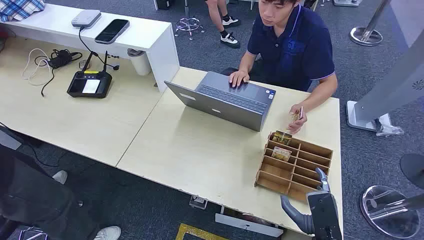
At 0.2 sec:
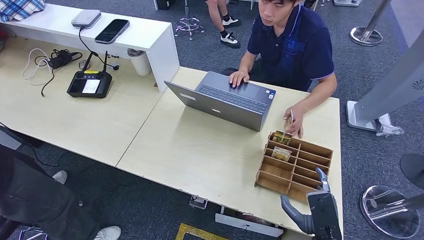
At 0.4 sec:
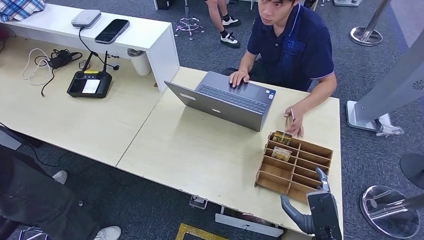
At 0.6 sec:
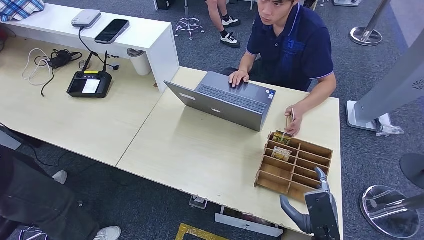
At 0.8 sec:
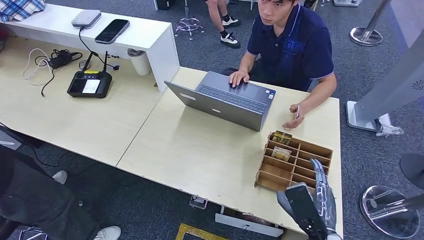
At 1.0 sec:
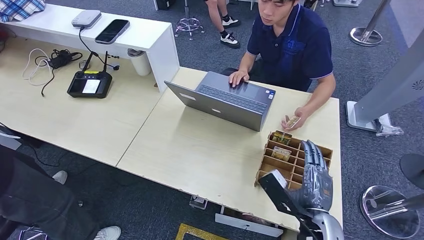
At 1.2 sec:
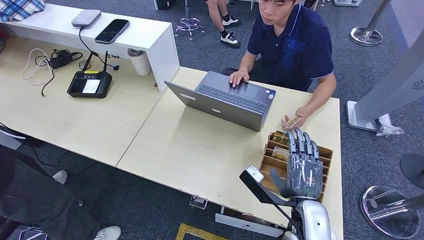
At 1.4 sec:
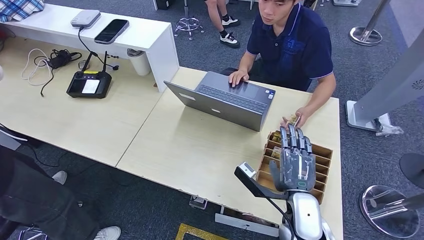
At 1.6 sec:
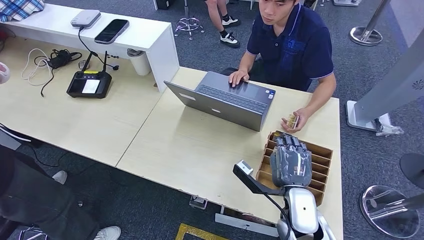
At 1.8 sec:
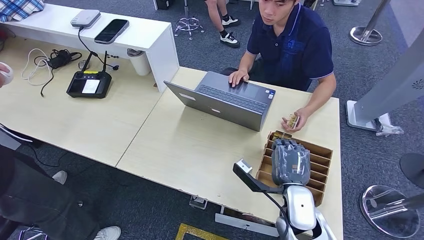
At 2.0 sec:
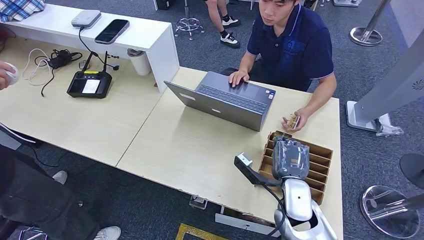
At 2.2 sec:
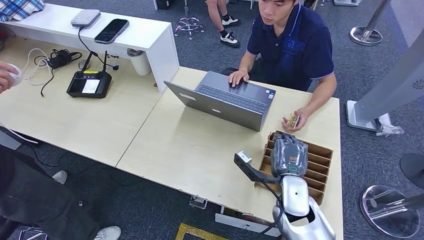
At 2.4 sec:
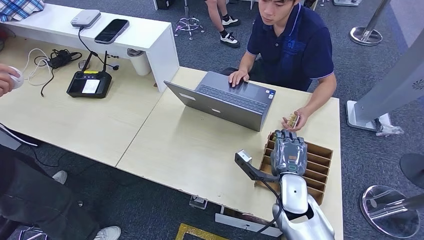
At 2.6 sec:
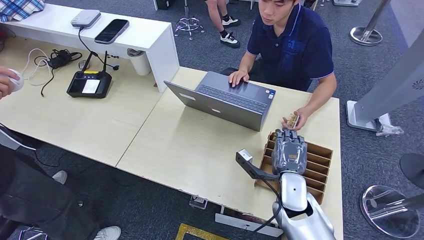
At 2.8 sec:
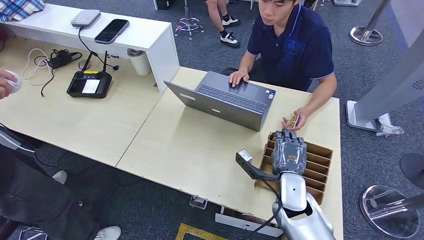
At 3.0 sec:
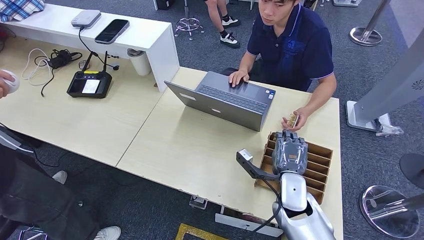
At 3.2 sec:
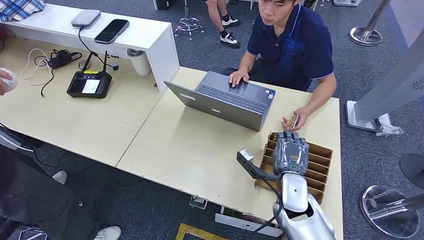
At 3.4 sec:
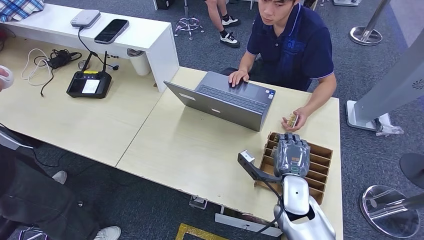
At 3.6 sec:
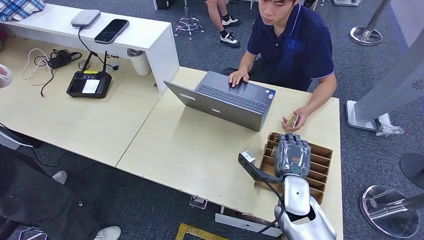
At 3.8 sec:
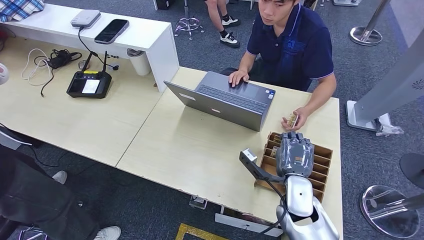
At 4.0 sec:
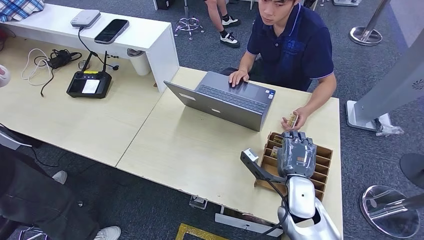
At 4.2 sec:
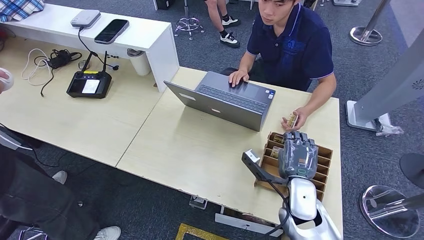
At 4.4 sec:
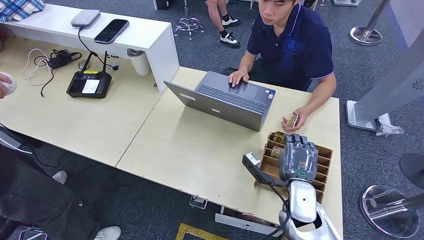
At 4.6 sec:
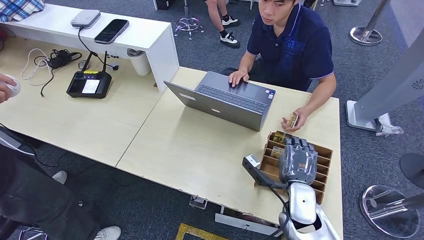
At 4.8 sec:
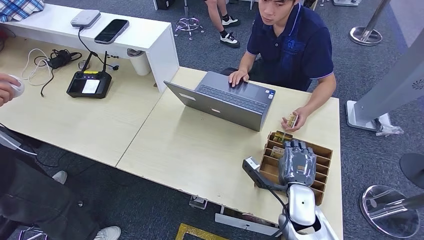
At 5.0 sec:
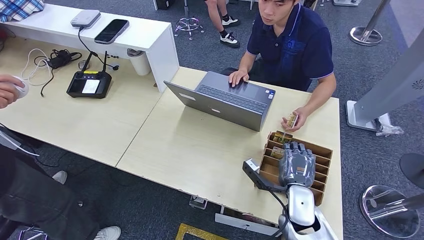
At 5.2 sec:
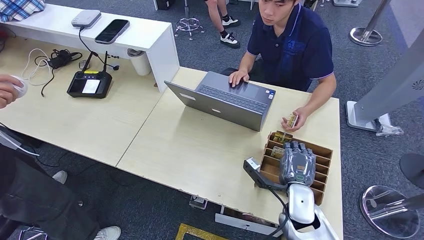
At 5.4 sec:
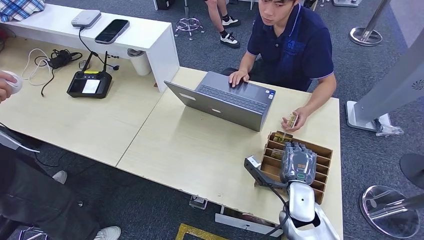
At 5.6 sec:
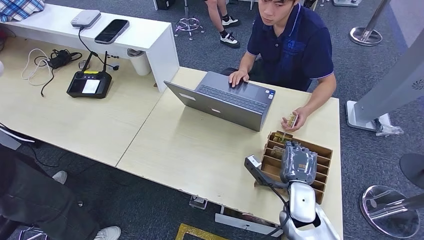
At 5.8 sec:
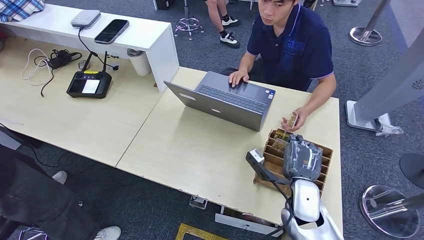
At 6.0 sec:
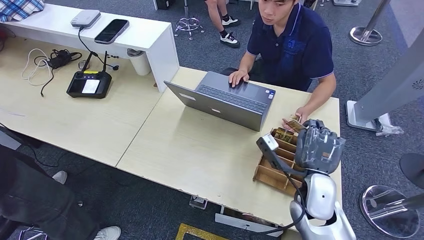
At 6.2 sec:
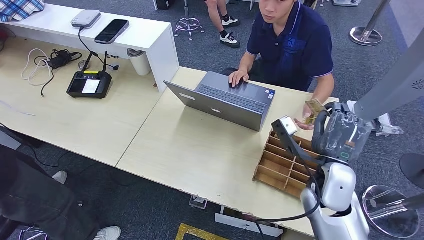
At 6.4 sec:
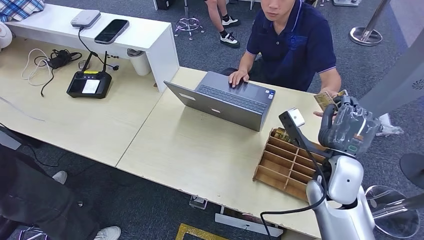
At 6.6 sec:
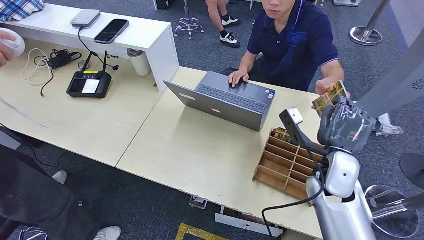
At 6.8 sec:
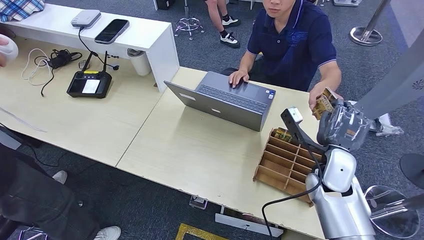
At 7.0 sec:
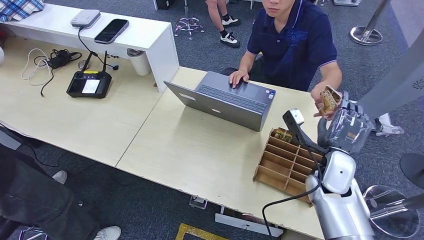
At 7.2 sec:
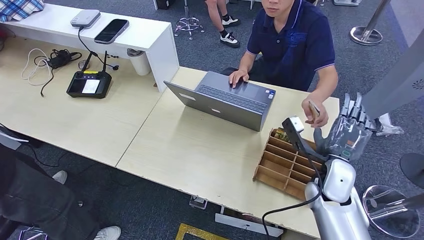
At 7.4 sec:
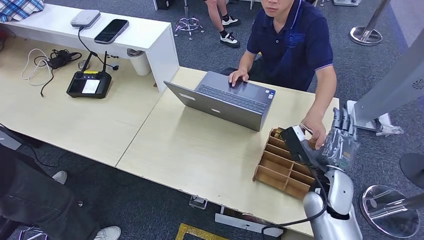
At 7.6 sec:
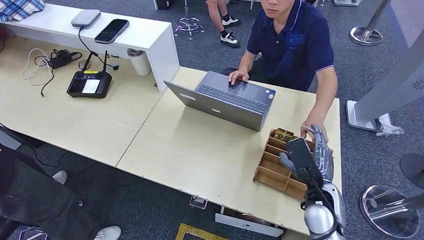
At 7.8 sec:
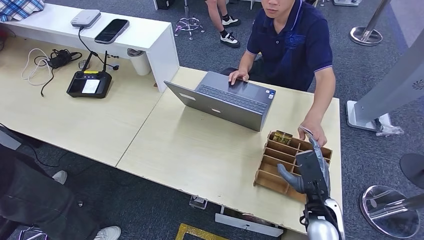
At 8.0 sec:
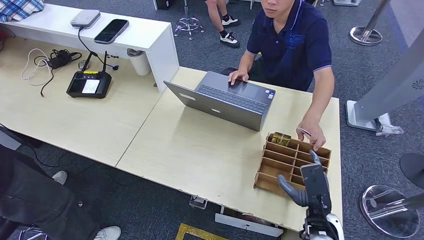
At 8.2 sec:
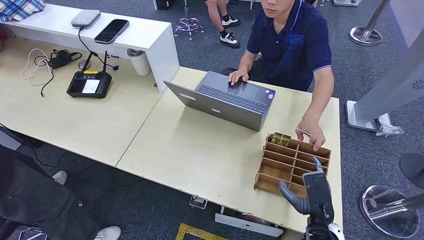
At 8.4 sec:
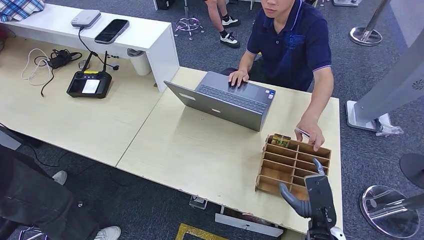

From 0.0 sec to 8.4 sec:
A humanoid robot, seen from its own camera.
Step, from 0.0 sec to 5.8 sec: Pick up the key card from the card box.
Step, from 6.0 sec to 8.4 sec: Hand the key card to the target.
From 1.4 sec to 2.8 sec: The right hand goes approximately 5 cm forward.
From 2.8 sec to 5.6 sec: The hands move only a little.
From 5.6 sec to 7.0 sec: The right hand shifts some 10 cm upward and forward.
From 7.0 sec to 8.4 sec: The right hand is displaced backward and downward by approximately 15 cm.
